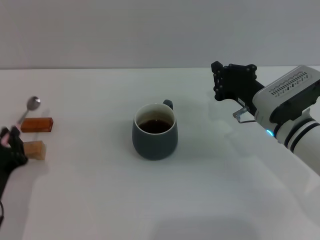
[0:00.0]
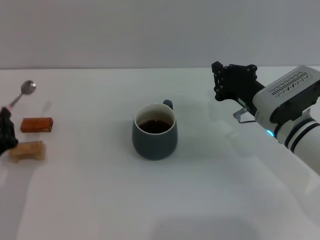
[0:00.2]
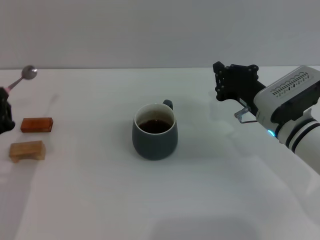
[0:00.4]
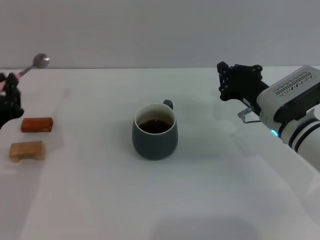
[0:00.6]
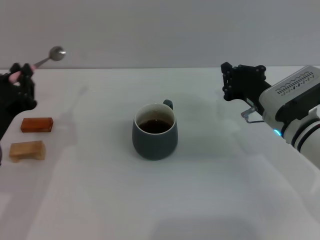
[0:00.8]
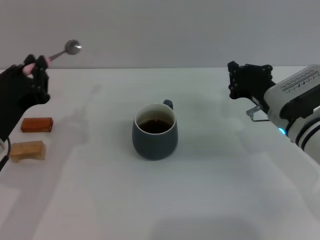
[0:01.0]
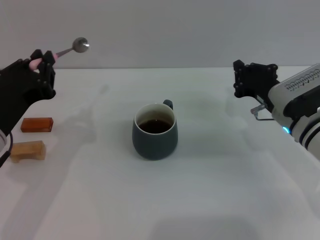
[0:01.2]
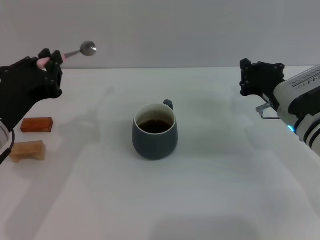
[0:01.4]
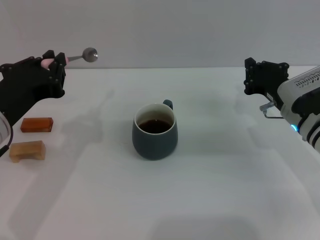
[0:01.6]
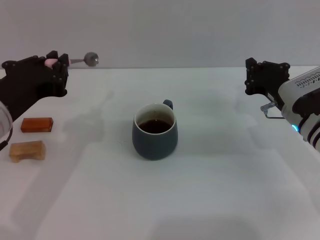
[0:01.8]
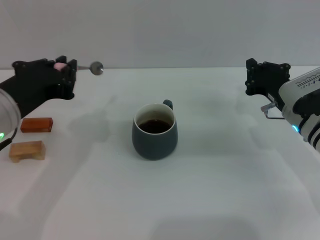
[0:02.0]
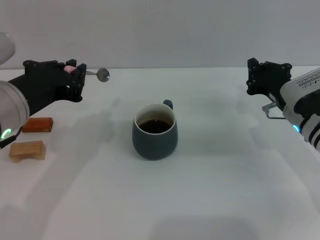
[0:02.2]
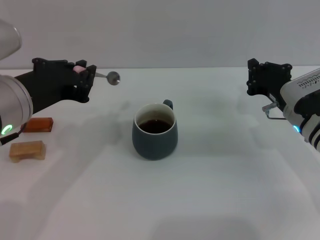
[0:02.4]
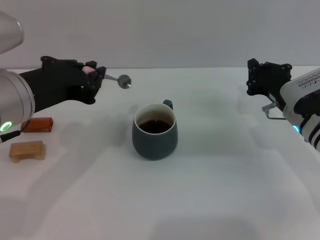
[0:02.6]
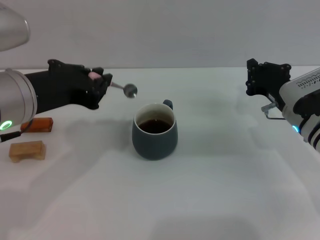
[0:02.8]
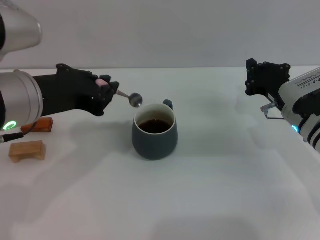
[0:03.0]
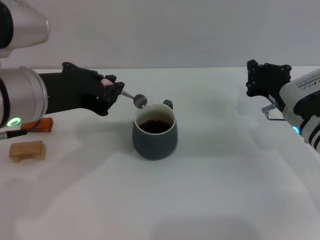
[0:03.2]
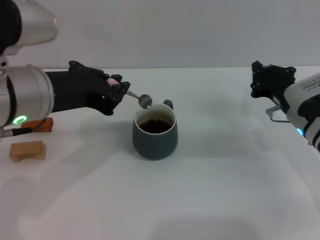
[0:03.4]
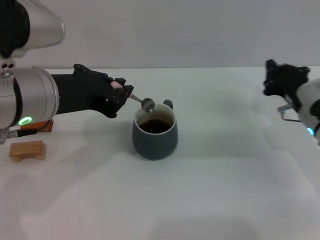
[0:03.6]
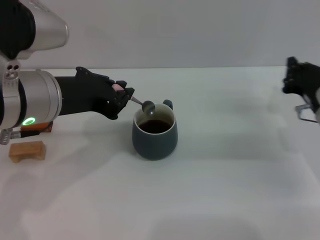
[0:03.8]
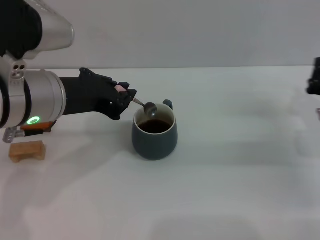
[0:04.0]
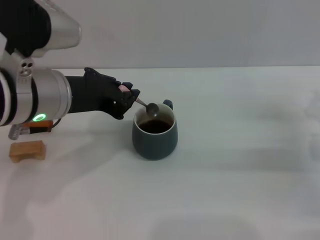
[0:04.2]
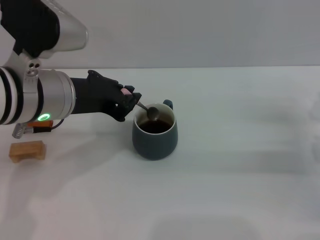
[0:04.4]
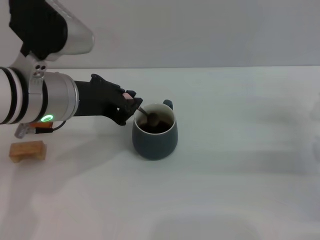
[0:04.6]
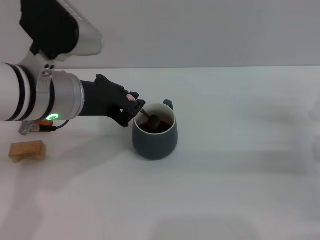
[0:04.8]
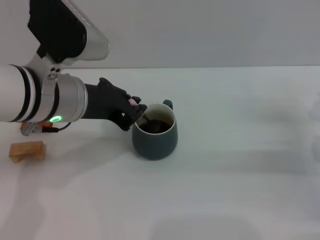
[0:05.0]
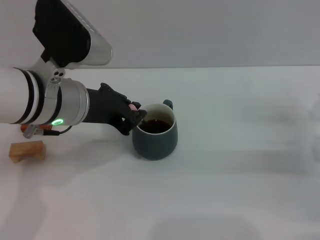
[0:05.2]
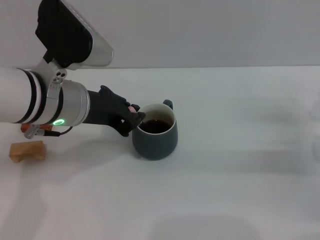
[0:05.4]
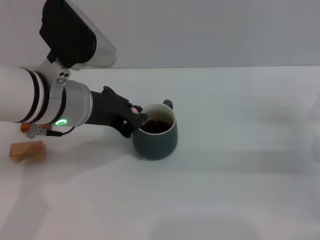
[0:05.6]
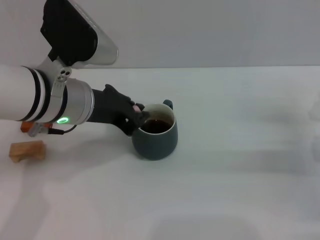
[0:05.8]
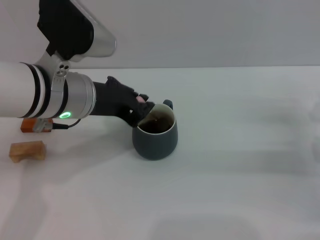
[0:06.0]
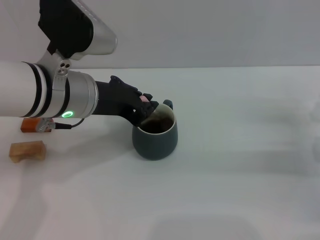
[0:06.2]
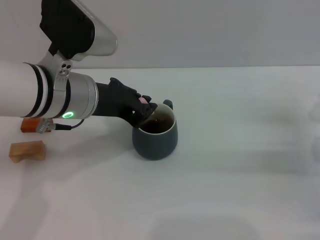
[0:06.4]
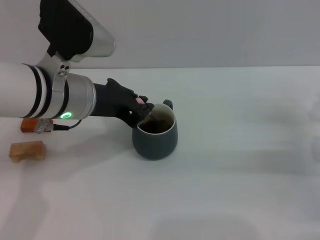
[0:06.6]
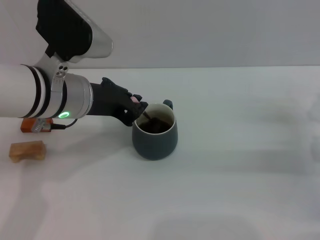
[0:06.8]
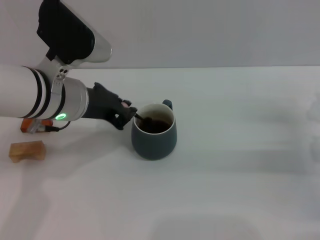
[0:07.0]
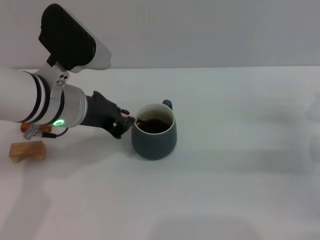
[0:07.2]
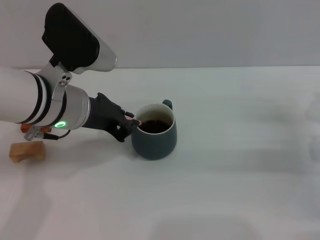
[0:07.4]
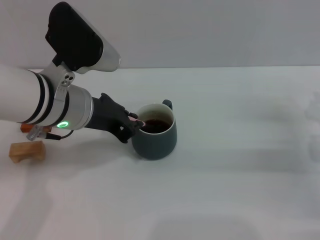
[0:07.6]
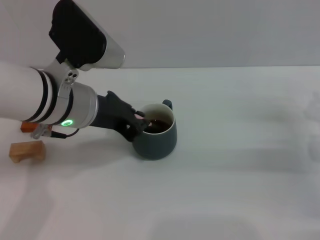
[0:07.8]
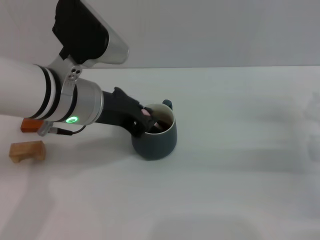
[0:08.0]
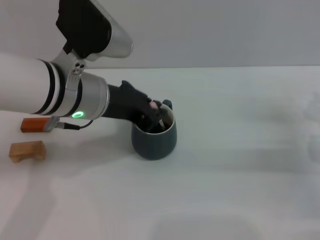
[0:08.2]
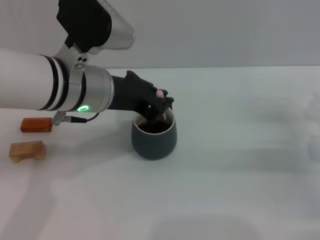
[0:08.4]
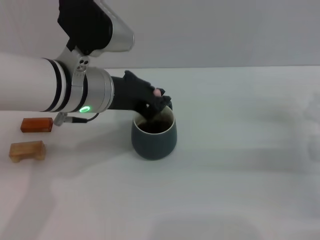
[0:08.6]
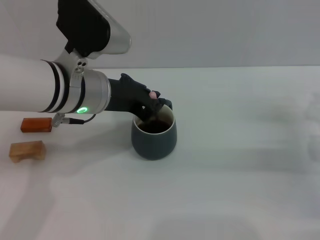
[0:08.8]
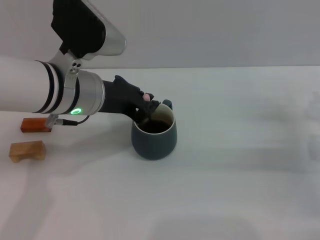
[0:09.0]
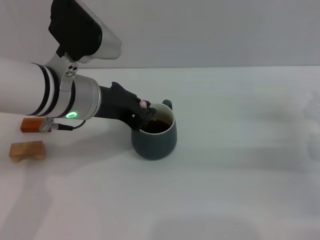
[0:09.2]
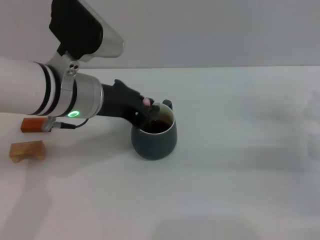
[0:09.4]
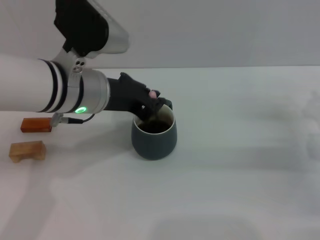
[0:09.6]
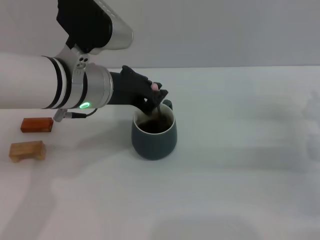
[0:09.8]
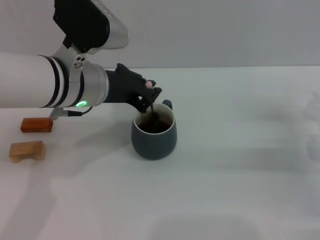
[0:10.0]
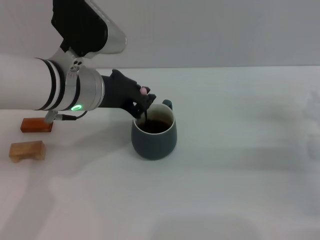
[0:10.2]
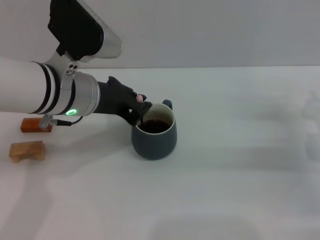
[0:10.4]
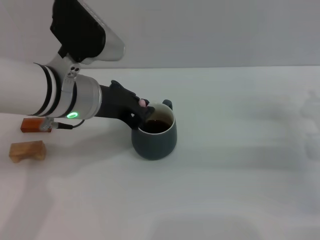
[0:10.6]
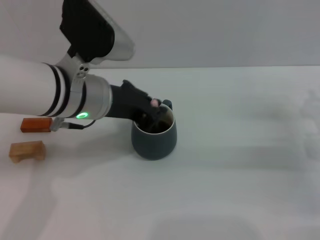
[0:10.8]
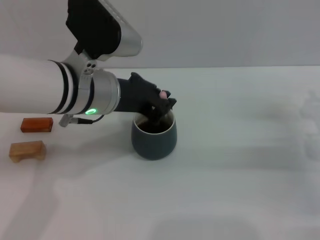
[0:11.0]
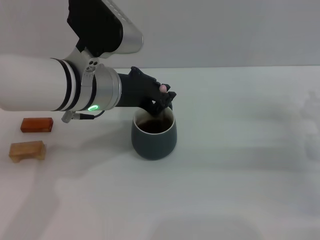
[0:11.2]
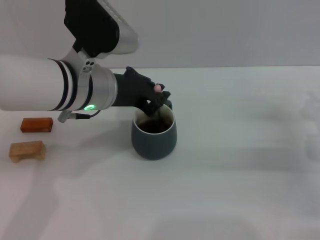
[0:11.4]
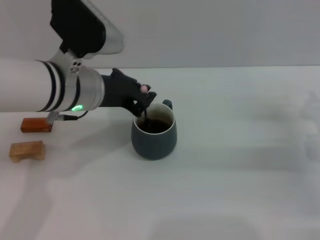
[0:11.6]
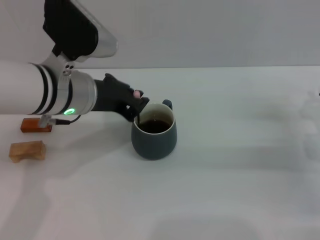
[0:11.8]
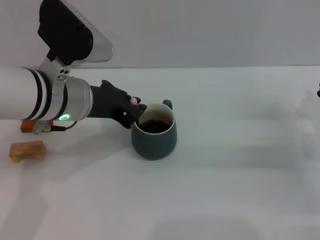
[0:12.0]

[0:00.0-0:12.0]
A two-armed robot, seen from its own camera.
Task of the whole recording: Move the grey cup to the center, lift the pink spoon, stir it three times in the cup, and put the spoon into the cup.
0:00.0 to 0:01.6: The left gripper heads upward, covering some 15 cm.
0:01.6 to 0:03.0: The left gripper is displaced upward by approximately 5 cm.
0:03.0 to 0:04.4: The right gripper goes roughly 10 cm to the right.
0:04.4 to 0:09.0: There are only small adjustments of the grippers.
0:09.0 to 0:10.4: Both grippers stay about where they are.
0:10.4 to 0:12.0: The grippers move only a little.

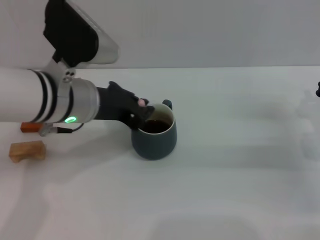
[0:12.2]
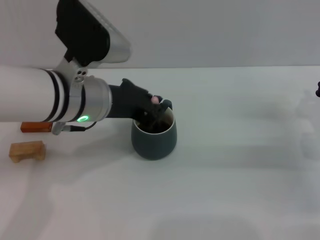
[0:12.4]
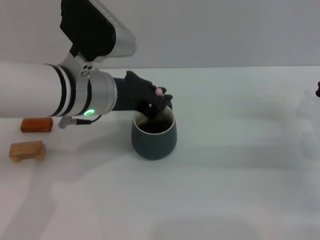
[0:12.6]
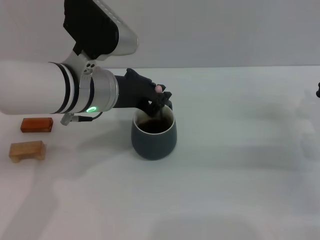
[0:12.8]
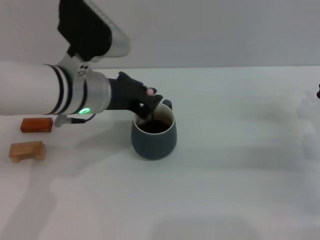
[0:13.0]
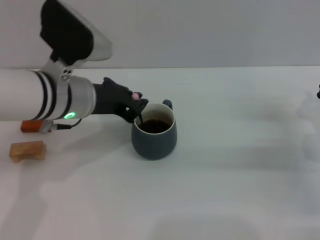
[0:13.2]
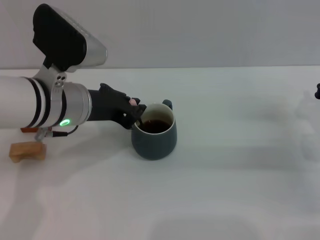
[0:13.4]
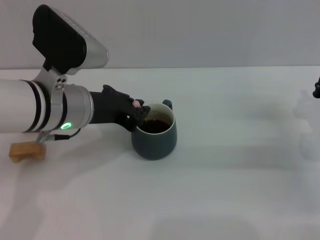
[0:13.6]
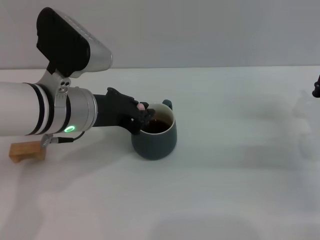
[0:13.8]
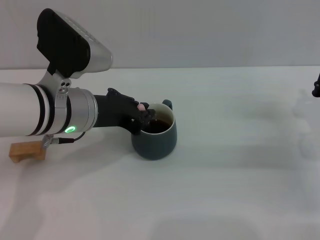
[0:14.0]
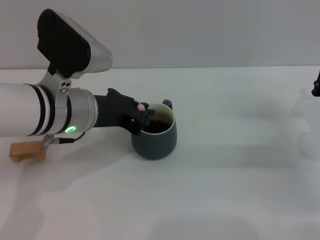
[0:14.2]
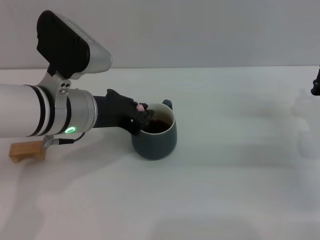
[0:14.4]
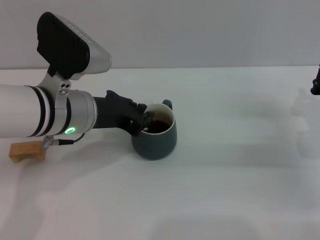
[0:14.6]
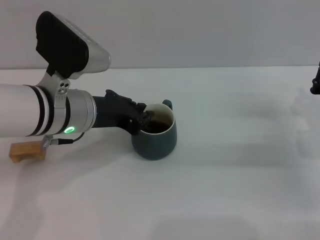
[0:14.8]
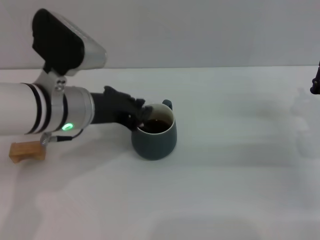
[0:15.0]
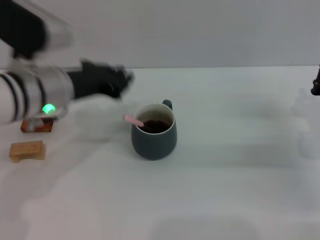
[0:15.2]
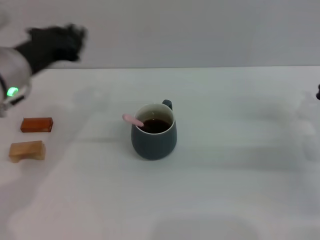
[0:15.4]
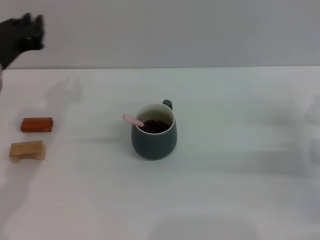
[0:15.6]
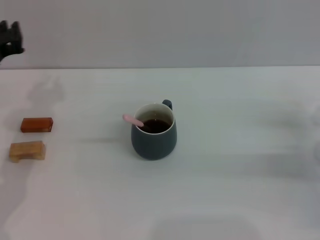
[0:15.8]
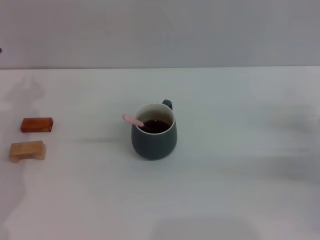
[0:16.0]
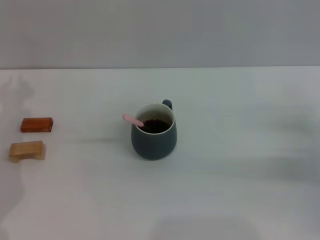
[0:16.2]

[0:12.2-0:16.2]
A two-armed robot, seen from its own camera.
Task of the whole recording: Move the grey cup to the center, lift the pink spoon, stir it three times in the cup, and put the spoon into the cup.
Step, 0:12.2 to 0:15.0: Stir the coffee in the cup with the left gripper.
0:12.2 to 0:13.6: There are only small adjustments of the grippers.
0:13.6 to 0:14.8: Neither gripper changes place.
0:14.8 to 0:16.2: The left gripper travels to the left by approximately 15 cm, while the right gripper ends up approximately 5 cm from where it was.
